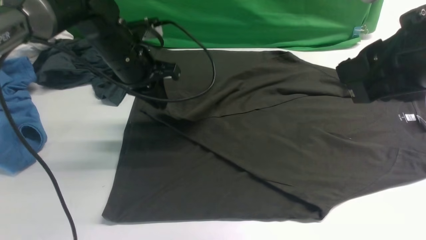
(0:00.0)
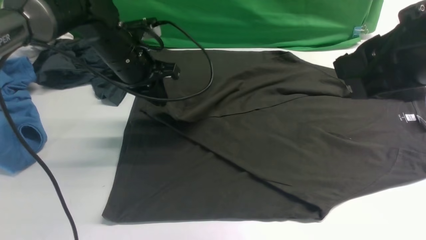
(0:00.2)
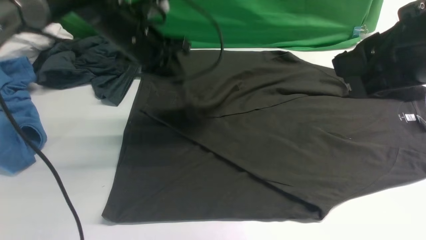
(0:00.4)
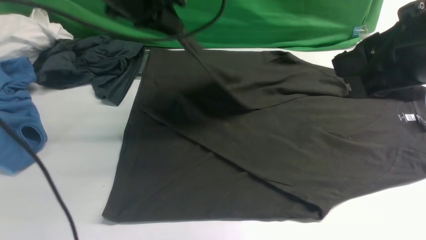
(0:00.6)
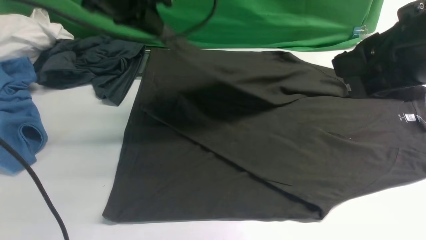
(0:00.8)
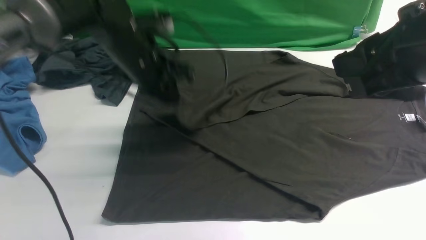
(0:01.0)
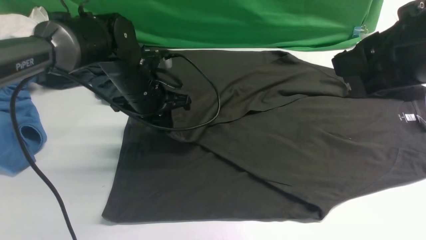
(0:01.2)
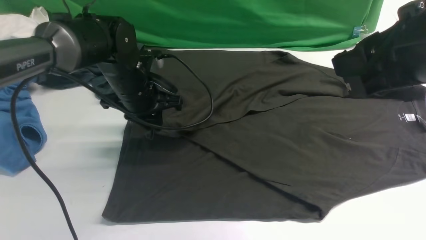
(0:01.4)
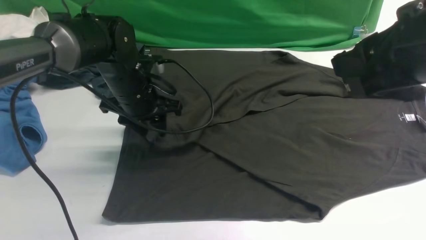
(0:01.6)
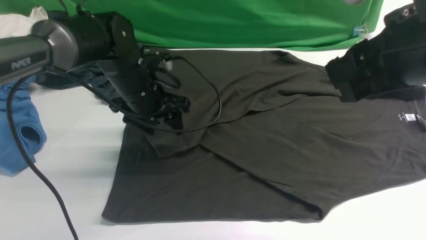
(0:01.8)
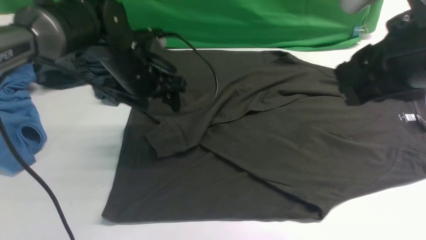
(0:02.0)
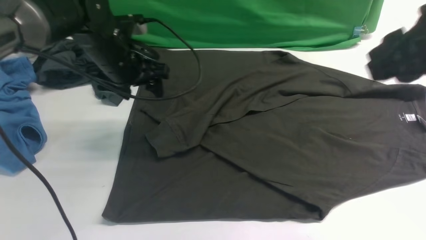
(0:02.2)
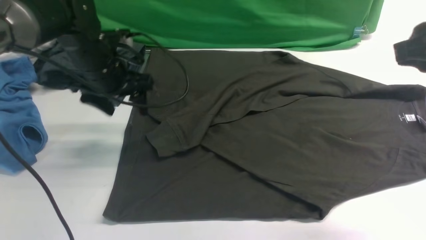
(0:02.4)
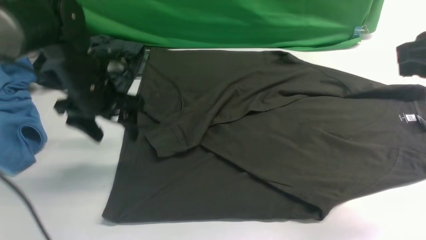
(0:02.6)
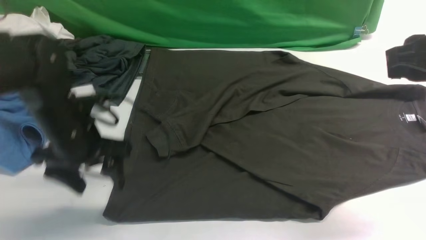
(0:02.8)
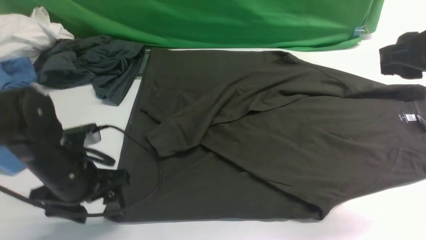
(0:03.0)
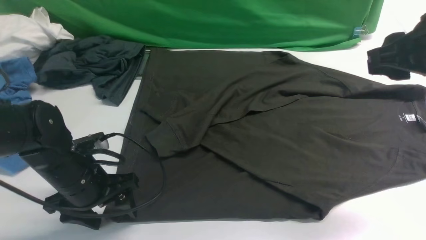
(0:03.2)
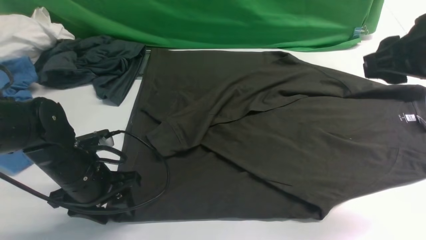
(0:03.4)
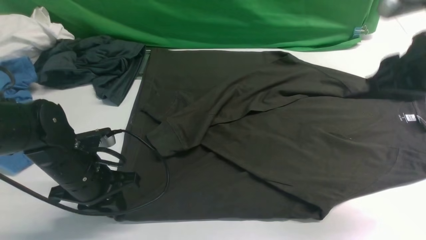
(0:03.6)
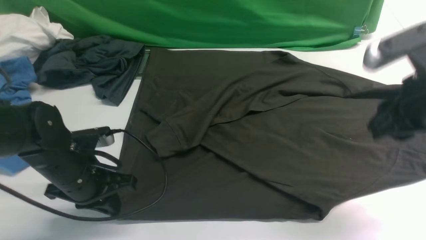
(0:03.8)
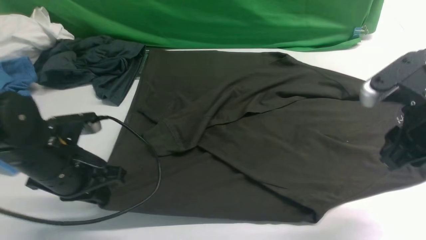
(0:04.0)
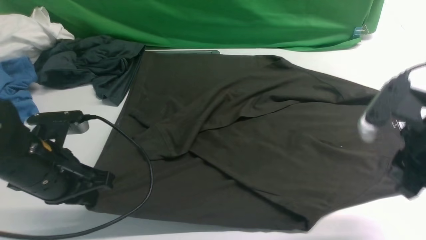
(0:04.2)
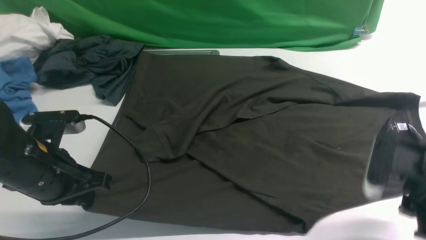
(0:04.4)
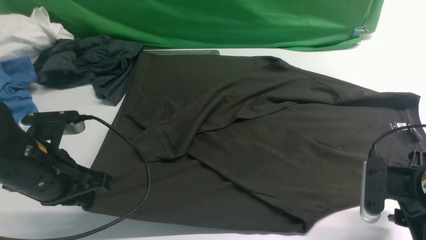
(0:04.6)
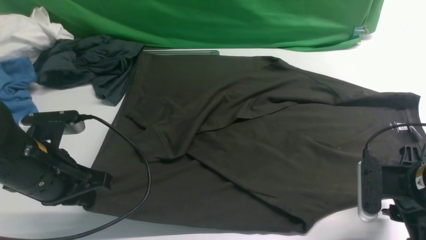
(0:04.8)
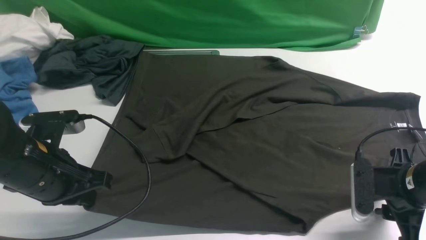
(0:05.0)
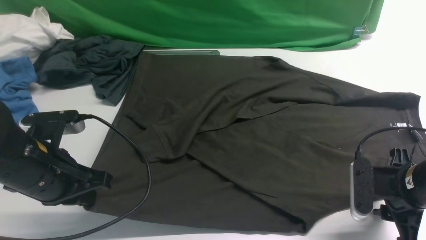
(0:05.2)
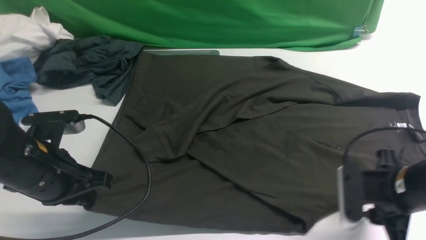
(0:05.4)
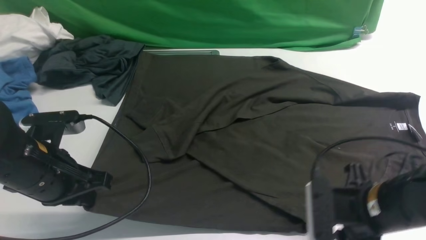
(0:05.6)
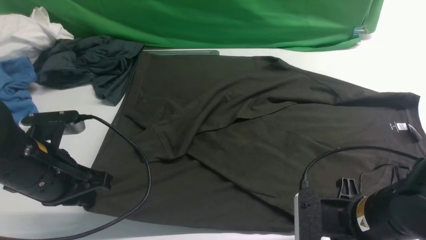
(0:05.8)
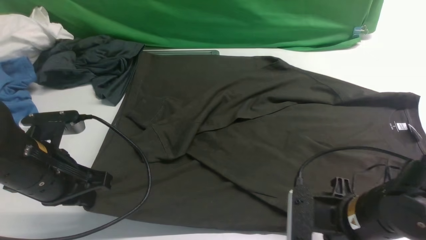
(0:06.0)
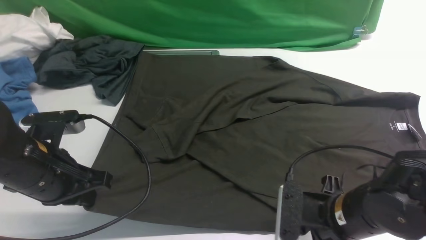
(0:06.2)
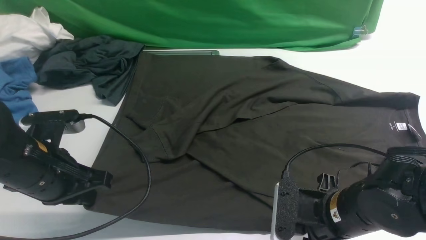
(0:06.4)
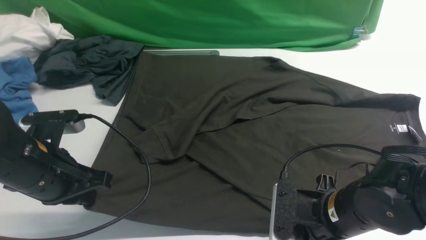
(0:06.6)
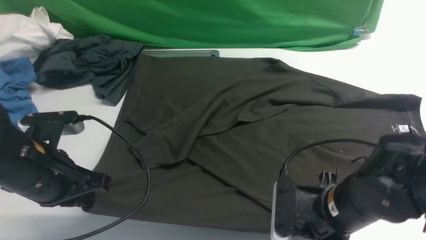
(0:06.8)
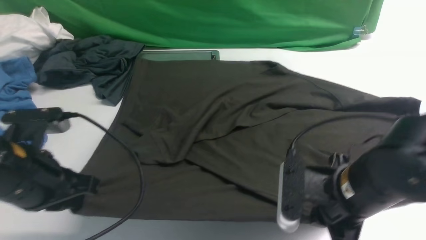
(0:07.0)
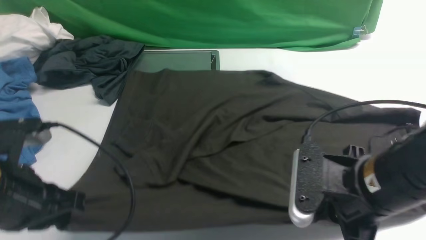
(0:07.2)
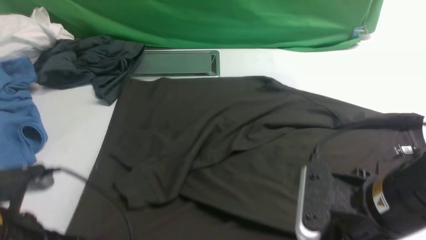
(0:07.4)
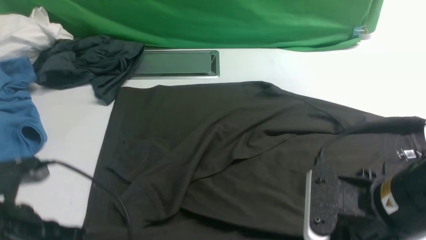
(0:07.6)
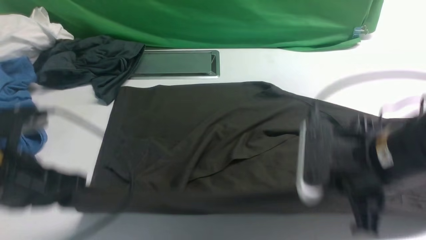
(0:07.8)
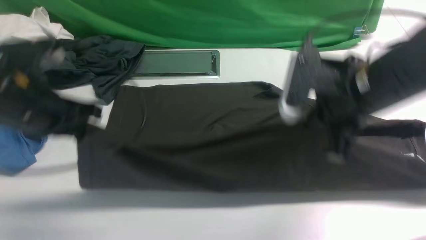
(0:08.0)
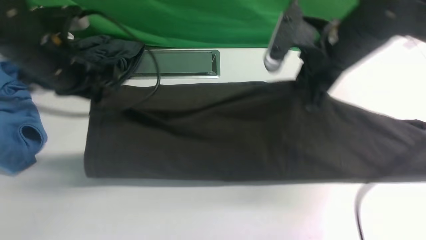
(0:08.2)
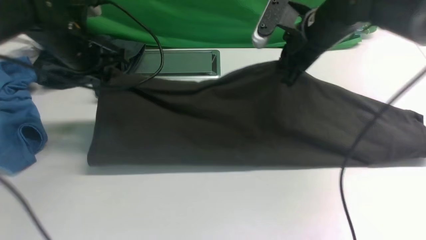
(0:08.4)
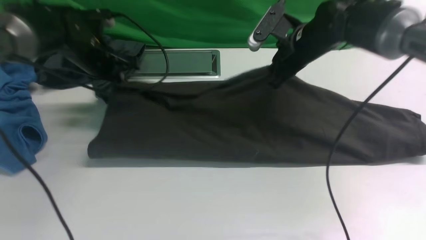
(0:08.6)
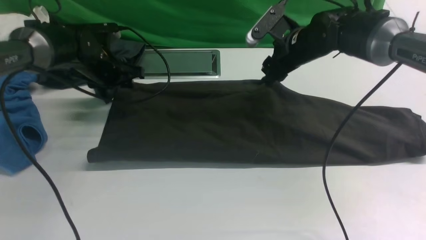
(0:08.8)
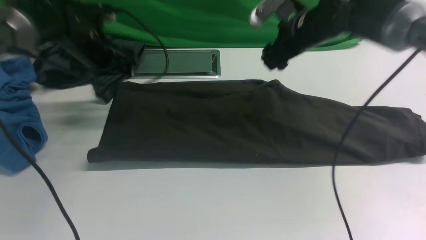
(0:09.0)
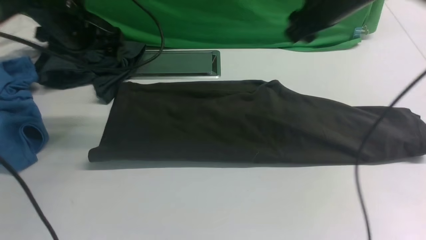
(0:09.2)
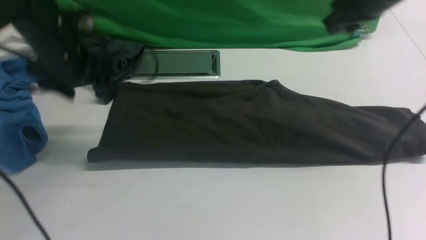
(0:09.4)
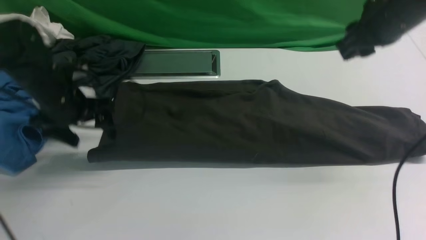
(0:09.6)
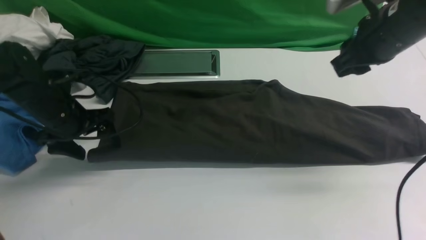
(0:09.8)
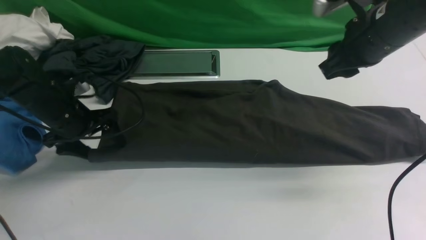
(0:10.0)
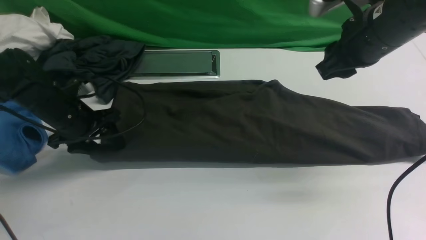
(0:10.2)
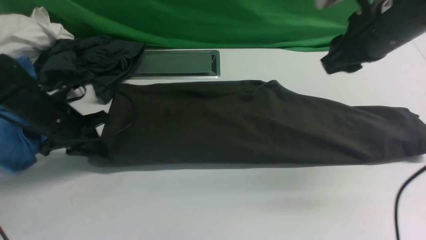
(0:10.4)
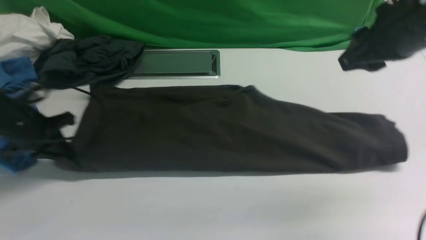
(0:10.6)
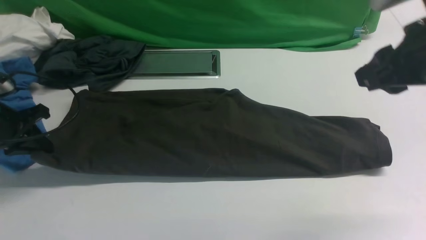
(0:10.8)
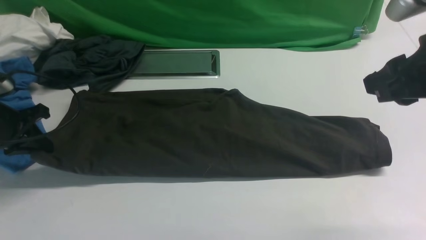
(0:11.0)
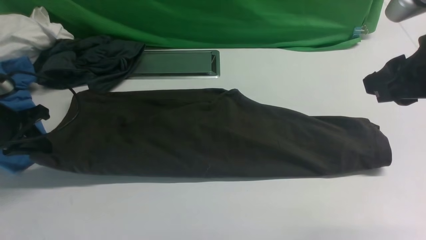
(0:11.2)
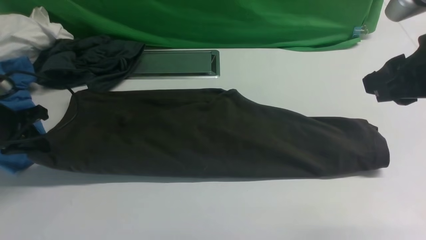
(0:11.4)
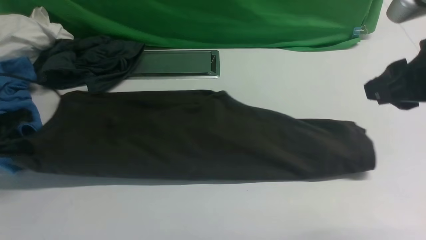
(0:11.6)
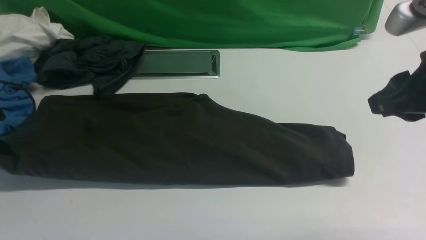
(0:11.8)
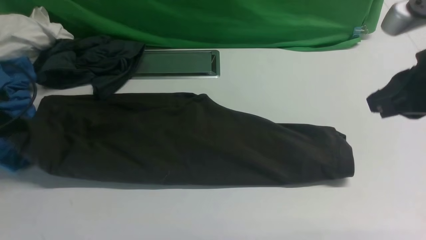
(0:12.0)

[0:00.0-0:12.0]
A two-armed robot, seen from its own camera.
Step, 0:01.8 to 0:07.0: use both arms simultaneously to clamp the lower edge of the clothing fabric.
Step, 0:07.2 to 0:09.0: use both arms to drag the lower edge of the fabric forward and fold it over the upper edge.
Step, 0:09.4 to 0:10.8: Hold the left edge of the fabric with your left arm.
0:00.0 to 0:01.6: The left gripper travels downward by approximately 5 cm, and opens up.
0:01.6 to 0:03.0: The left gripper heads backward and to the left, covering roughly 15 cm; the right gripper heads to the right and forward, covering approximately 10 cm.
0:03.0 to 0:04.4: The left gripper shifts by some 5 cm, and closes up. The right gripper goes about 15 cm downward.
0:04.4 to 0:06.0: The right gripper shifts approximately 10 cm to the left.
0:06.0 to 0:07.6: The left gripper travels backward by about 5 cm. The right gripper shifts about 10 cm upward, and closes its fingers.
0:07.6 to 0:09.0: Both grippers travel together forward, approximately 30 cm. The right gripper opens up. Meanwhile the left gripper opens.
0:09.0 to 0:10.4: The left gripper heads backward, downward and to the left, covering approximately 15 cm, and closes up, while the right gripper shifts approximately 15 cm backward and upward, and closes its fingers.
0:10.4 to 0:12.0: The right gripper moves backward, about 10 cm, and closes its fingers. Meanwhile the left gripper shifts roughly 10 cm to the left and upward.

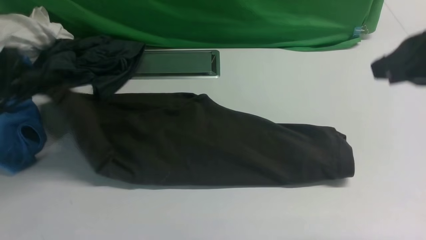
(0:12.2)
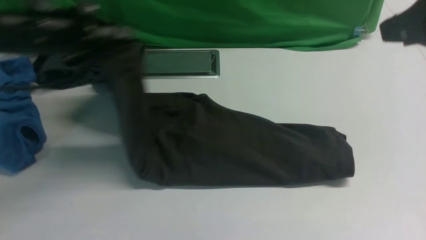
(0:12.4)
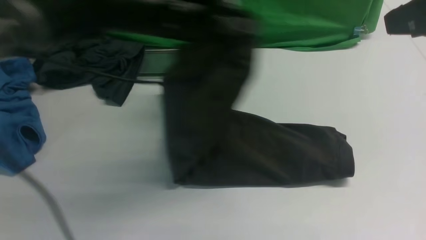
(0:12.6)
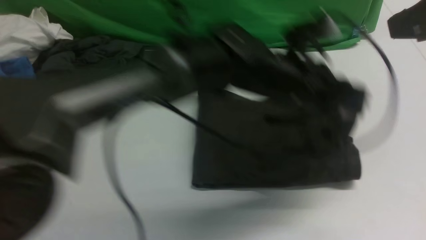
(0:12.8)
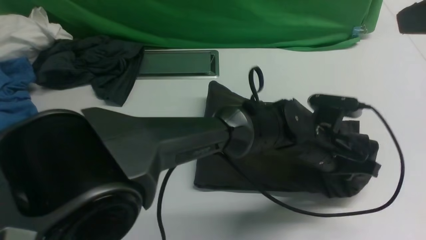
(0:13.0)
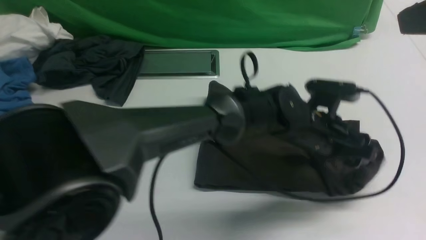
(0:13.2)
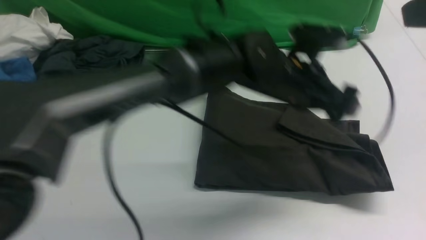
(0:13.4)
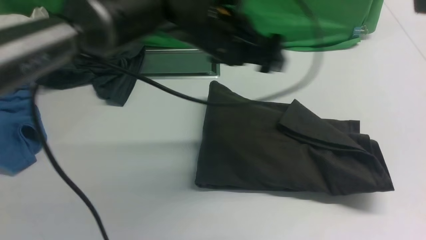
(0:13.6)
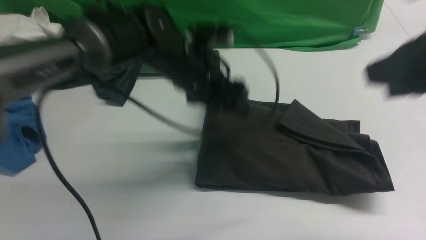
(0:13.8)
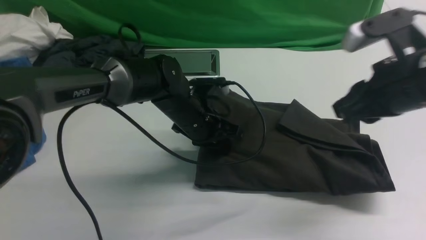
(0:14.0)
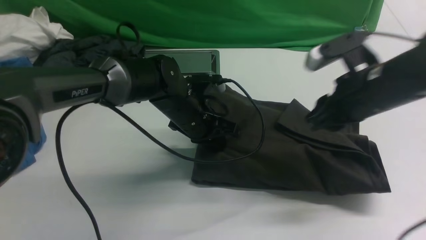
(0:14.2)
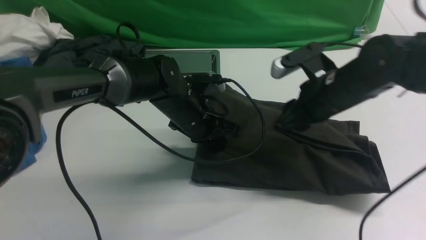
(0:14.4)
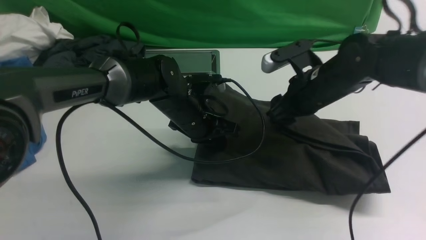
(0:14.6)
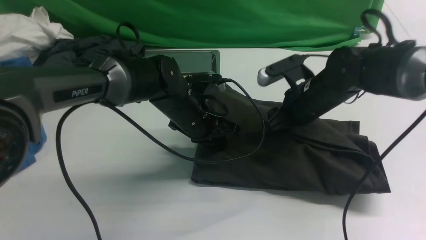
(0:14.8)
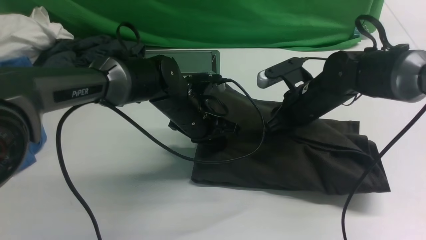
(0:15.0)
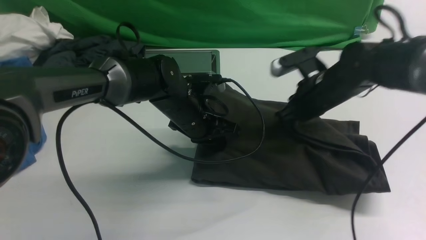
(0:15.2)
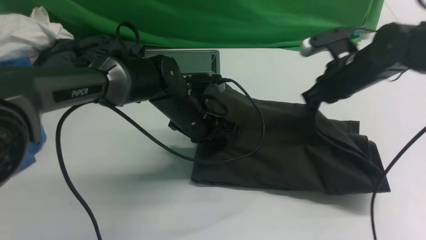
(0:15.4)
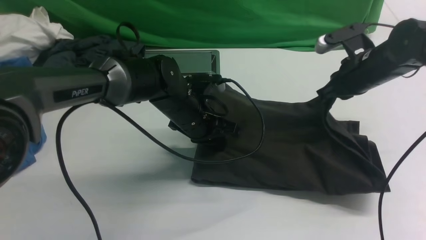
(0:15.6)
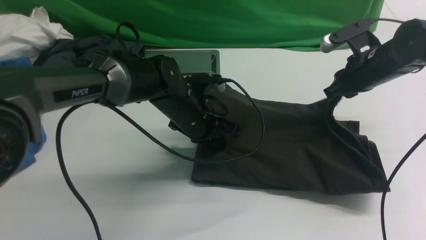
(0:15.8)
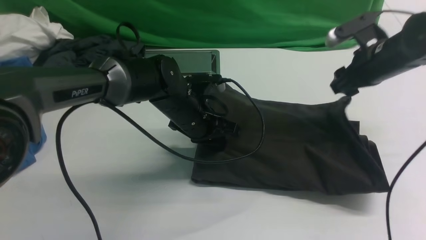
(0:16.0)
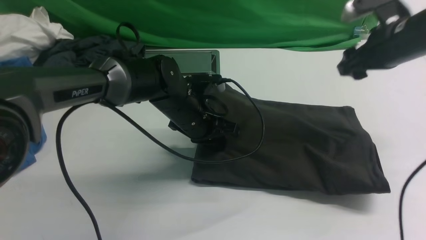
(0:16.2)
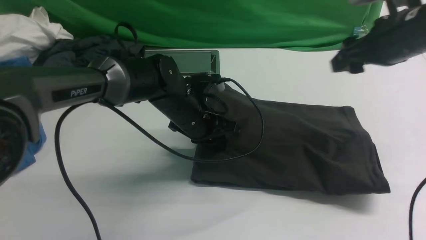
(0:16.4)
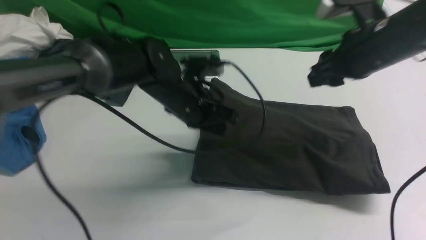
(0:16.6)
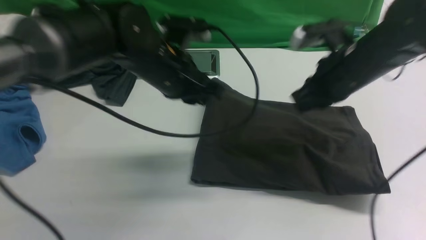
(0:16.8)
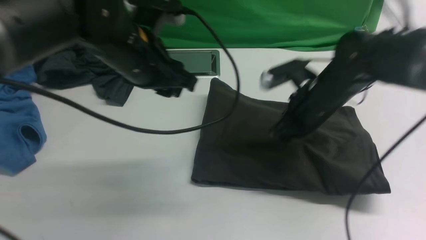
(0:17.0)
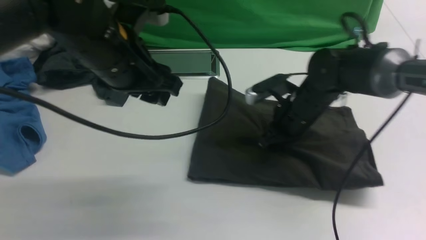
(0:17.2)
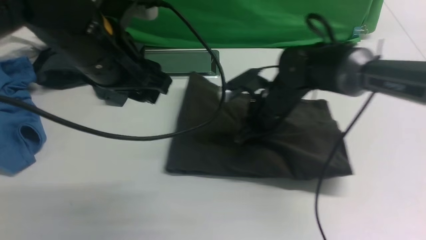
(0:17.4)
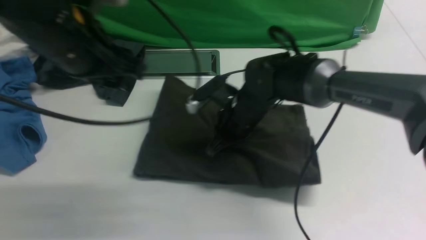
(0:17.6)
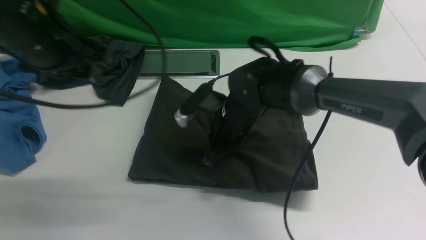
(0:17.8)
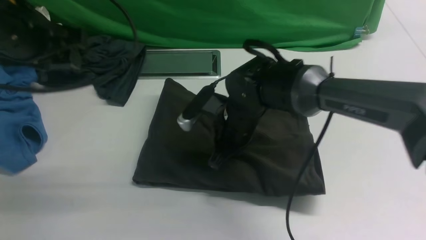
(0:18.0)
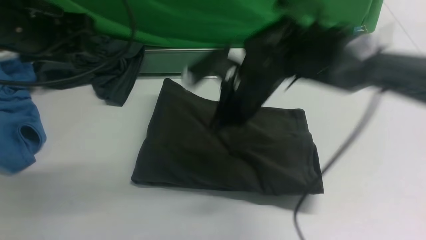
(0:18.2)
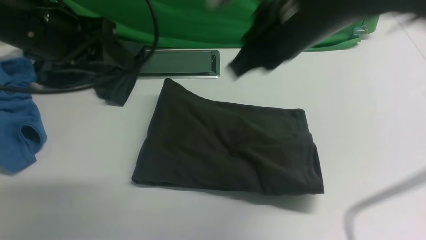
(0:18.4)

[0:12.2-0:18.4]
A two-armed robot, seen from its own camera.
0:12.2 to 0:13.8: The left gripper heads to the right, covering about 30 cm, and opens. The right gripper moves about 5 cm upward and comes back.
0:13.8 to 0:15.4: The right gripper goes approximately 25 cm downward and forward, and opens and closes again. The left gripper heads downward, covering roughly 5 cm, and closes its fingers.
0:15.4 to 0:16.8: The right gripper shifts by some 5 cm, and opens, then closes once more; the left gripper shifts approximately 10 cm upward.
0:16.8 to 0:18.4: The left gripper moves to the left, upward and backward, roughly 15 cm. Meanwhile the right gripper moves upward, to the left and backward, roughly 20 cm.
